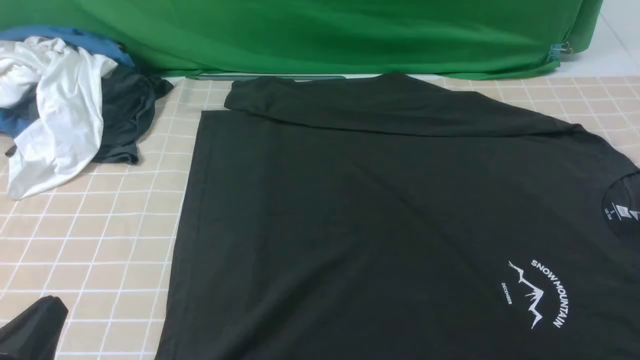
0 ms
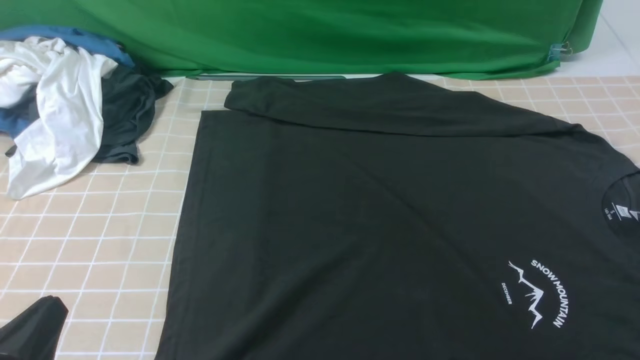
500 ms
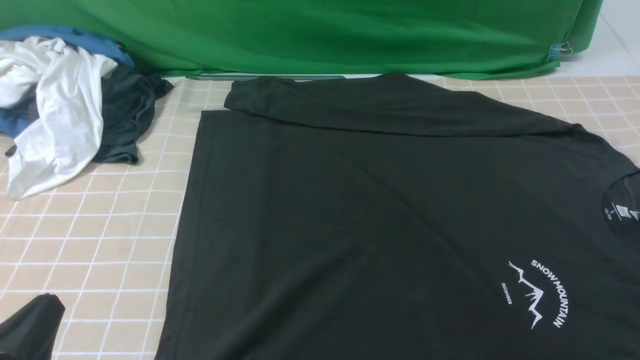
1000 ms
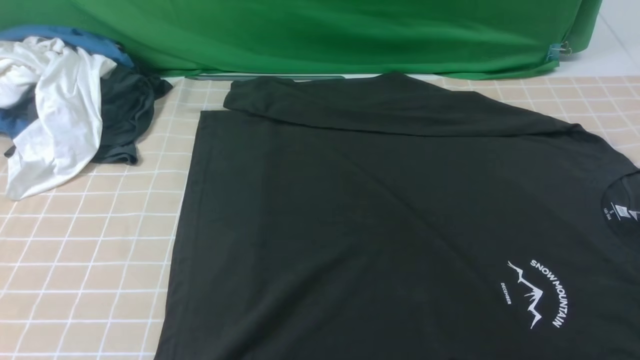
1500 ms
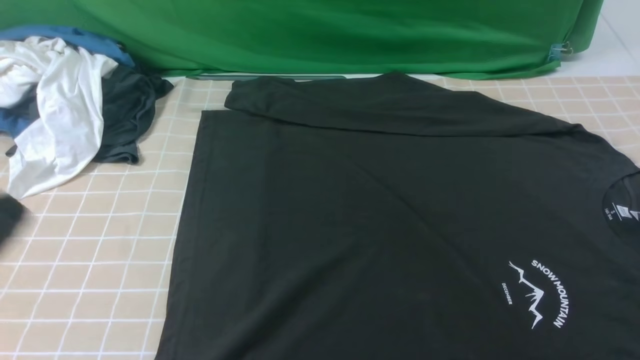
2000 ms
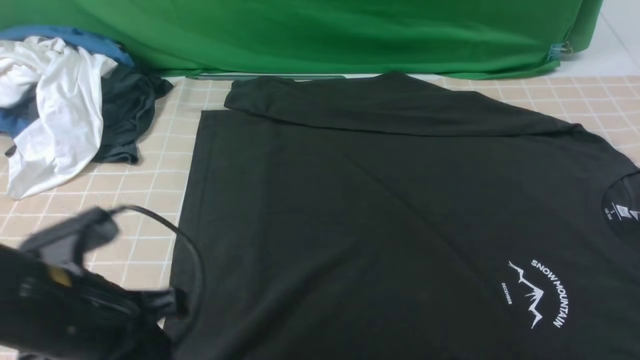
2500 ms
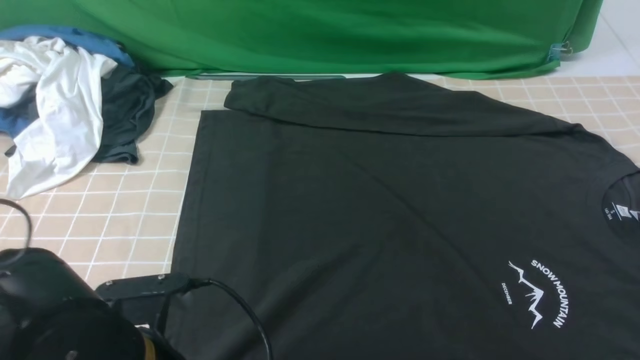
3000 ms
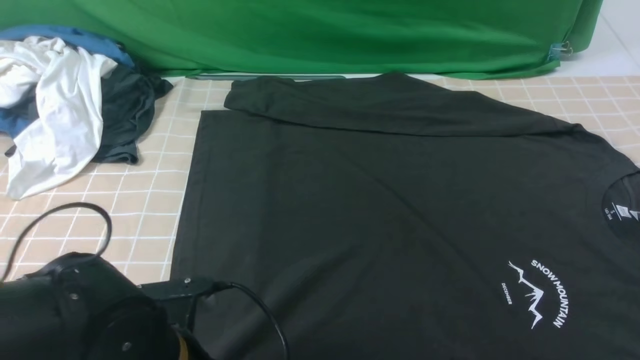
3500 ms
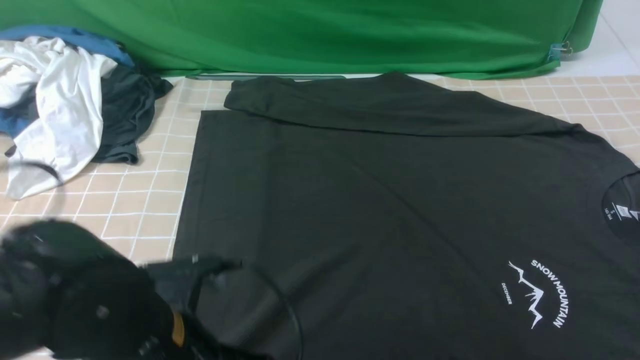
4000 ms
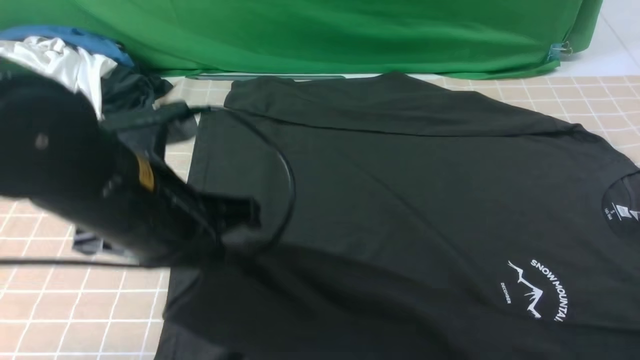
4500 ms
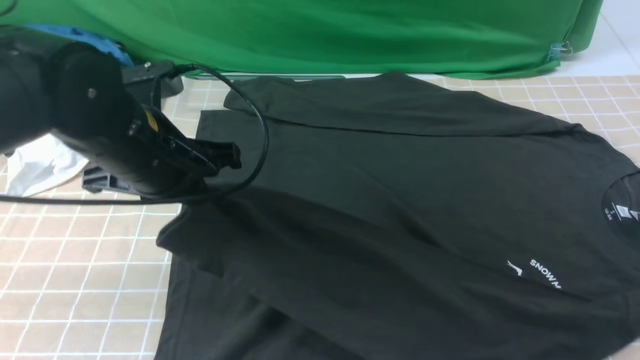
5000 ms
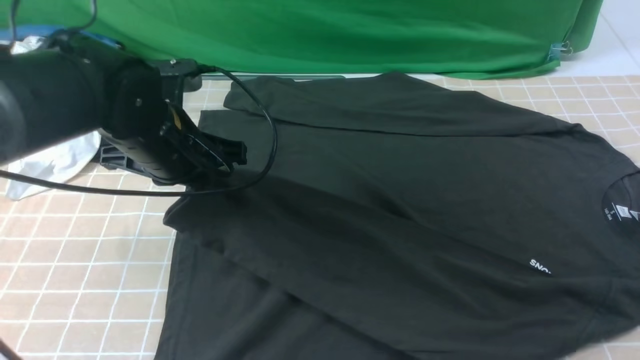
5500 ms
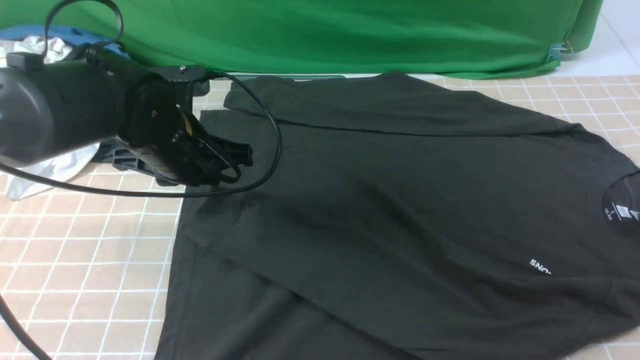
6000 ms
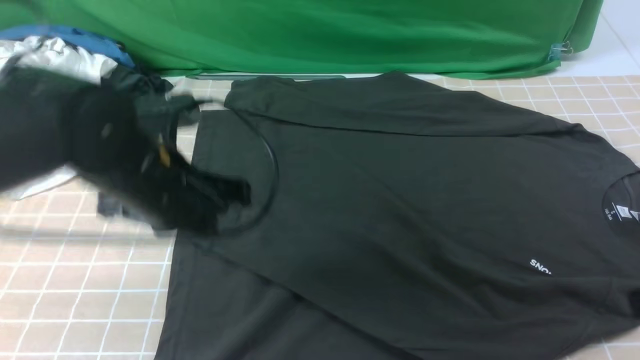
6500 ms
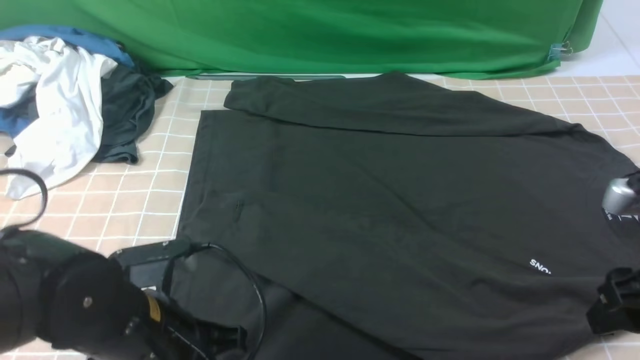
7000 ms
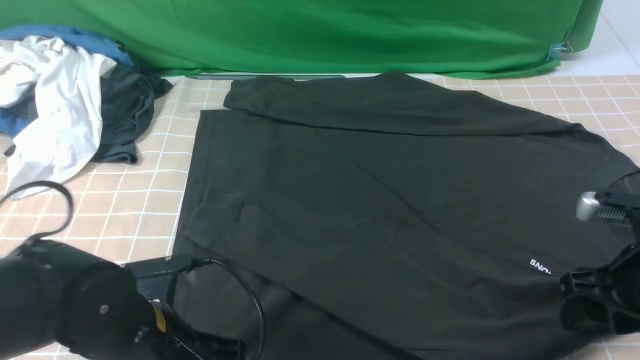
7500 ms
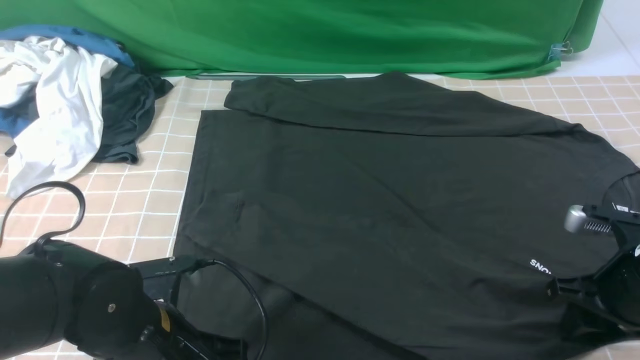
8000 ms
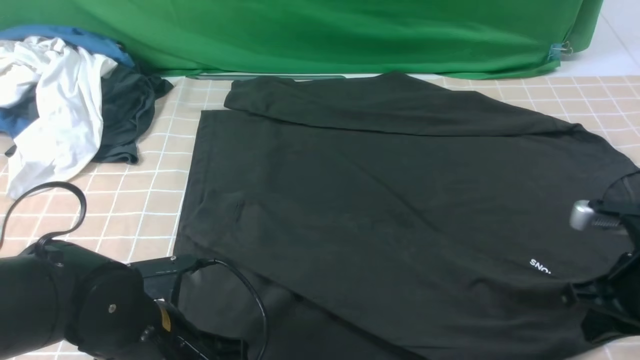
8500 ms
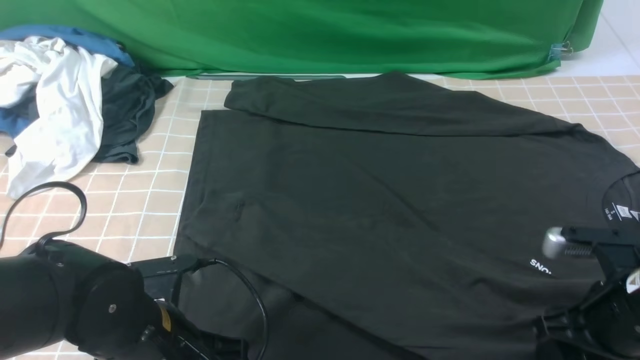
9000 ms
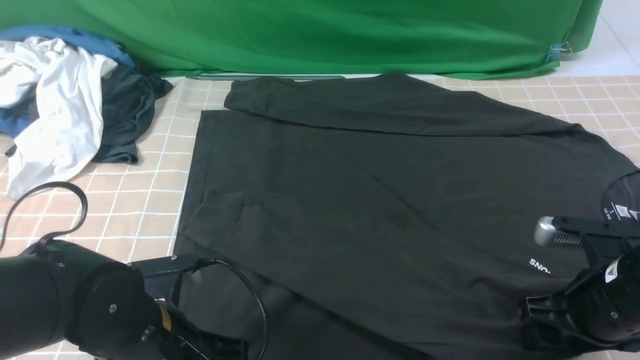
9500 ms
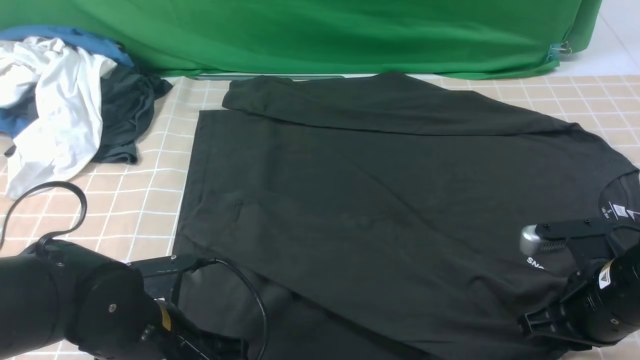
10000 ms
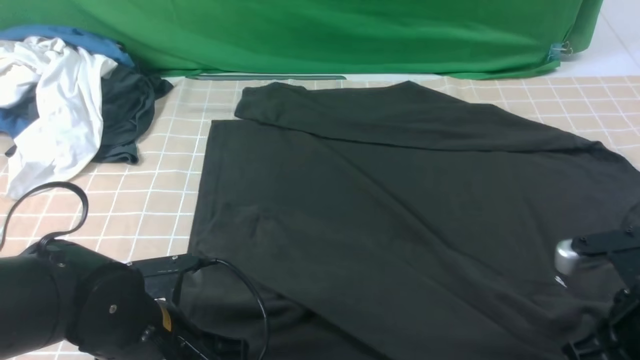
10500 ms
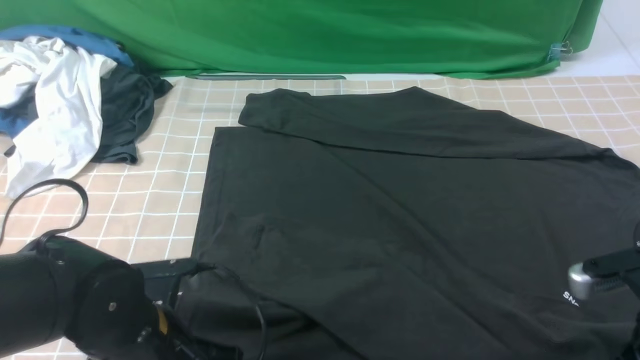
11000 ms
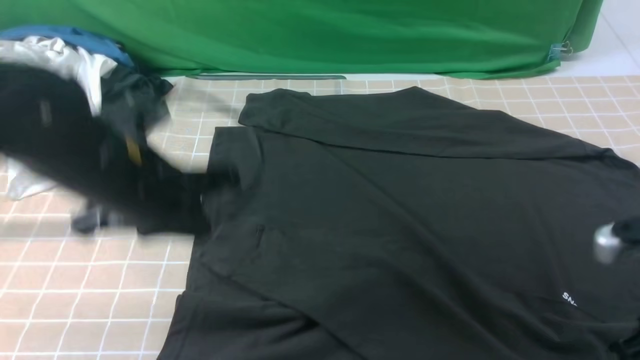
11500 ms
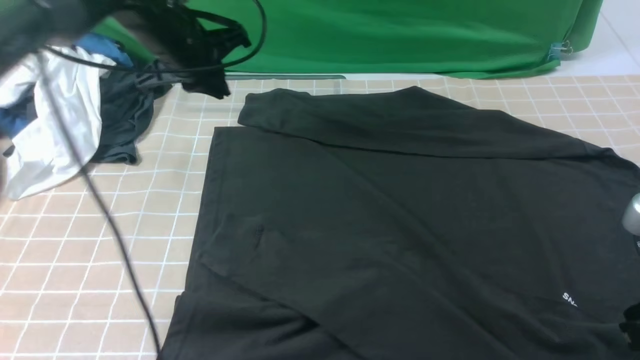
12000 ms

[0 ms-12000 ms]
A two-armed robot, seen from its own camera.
Step, 0 ms to 3500 ms: use the left arm to clamp the cuff closest to it.
Step, 4000 ms to 5500 ms: use the left arm to drag and place the cuff at the centered position on the left edge of the fabric.
0 ms to 2000 ms: The left gripper goes roughly 10 cm upward.
2000 ms to 4000 ms: The left gripper heads to the right, downward and forward, covering approximately 15 cm, and opens, then closes once more.
4000 ms to 6000 ms: The left gripper goes approximately 20 cm forward, and opens.
6000 ms to 8000 ms: The right gripper heads downward and forward, covering about 25 cm, and opens. Meanwhile the left gripper is displaced backward and downward by approximately 20 cm, and closes its fingers.
8000 ms to 10000 ms: The right gripper closes.
10000 ms to 12000 ms: The left gripper heads forward, covering roughly 30 cm. The right gripper travels upward and backward by about 15 cm.

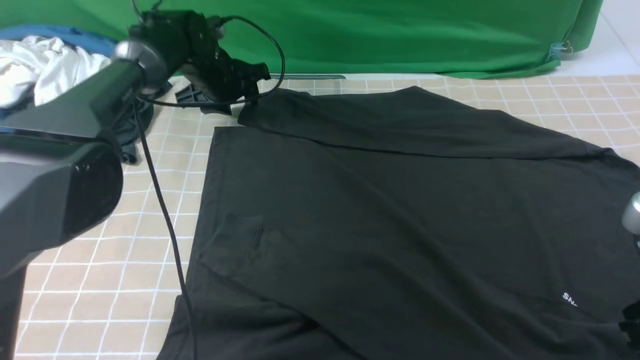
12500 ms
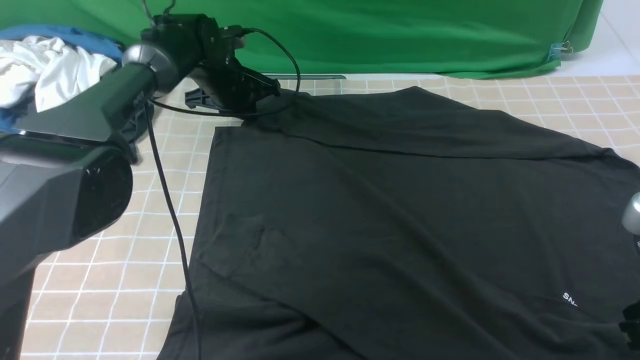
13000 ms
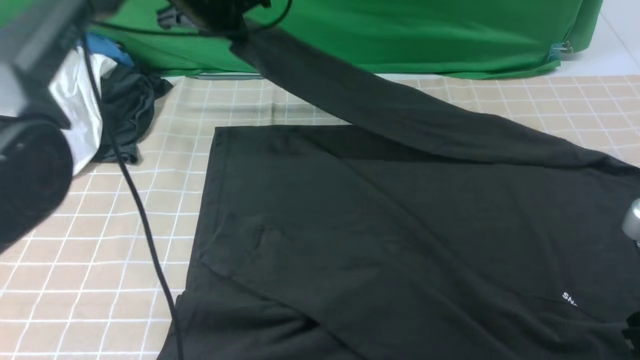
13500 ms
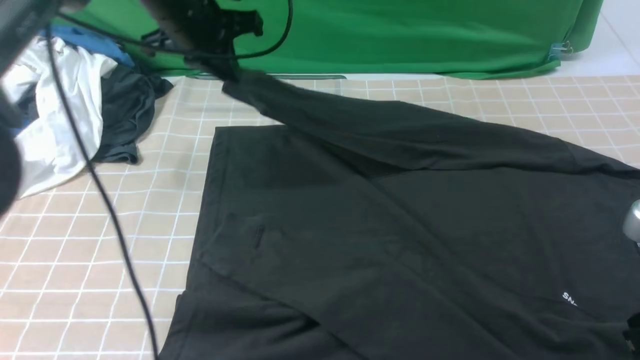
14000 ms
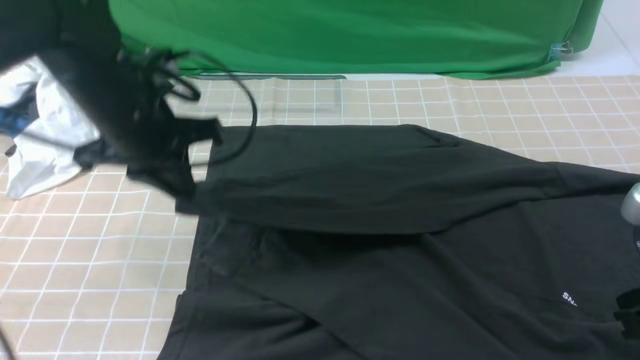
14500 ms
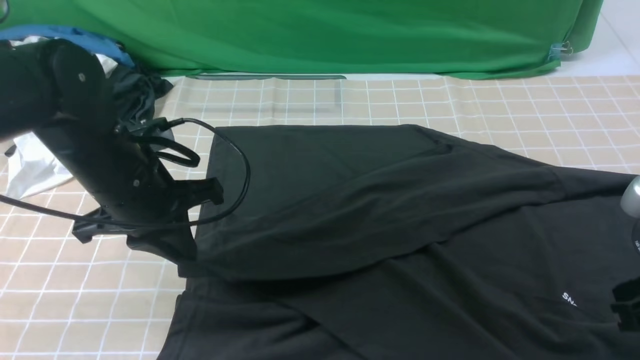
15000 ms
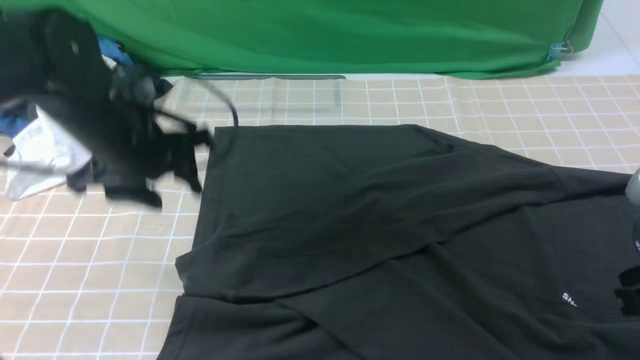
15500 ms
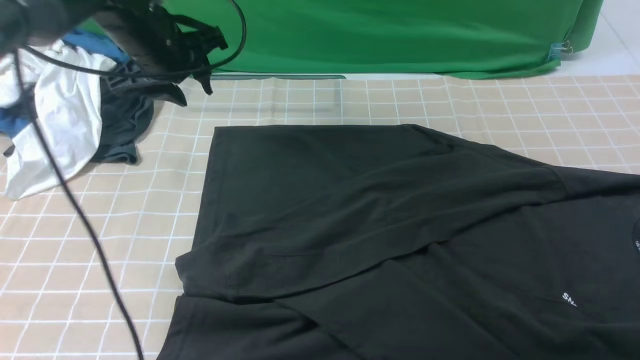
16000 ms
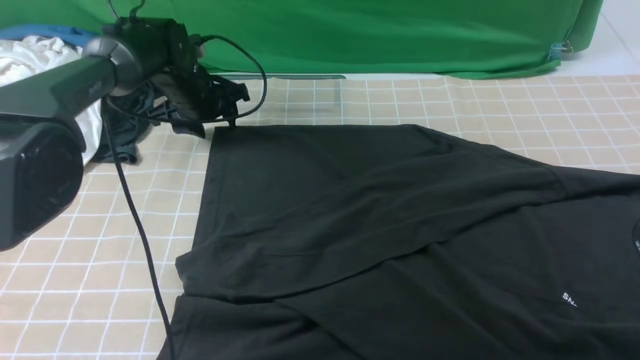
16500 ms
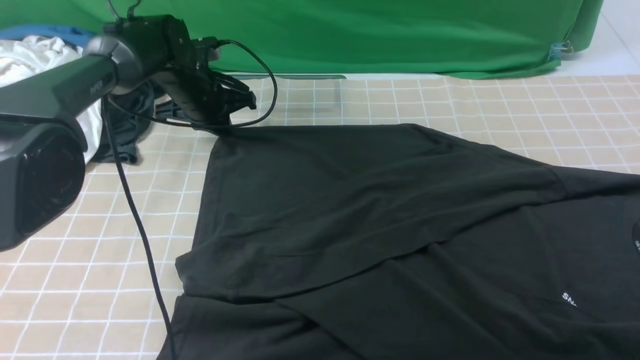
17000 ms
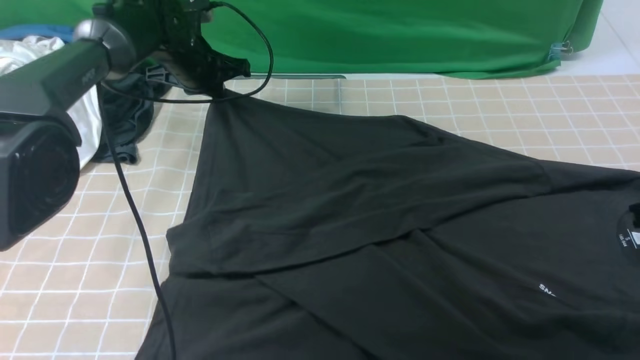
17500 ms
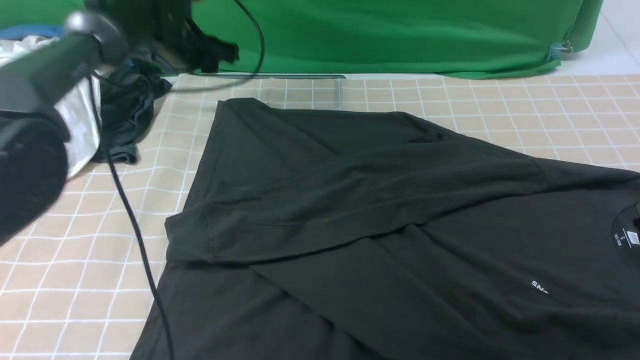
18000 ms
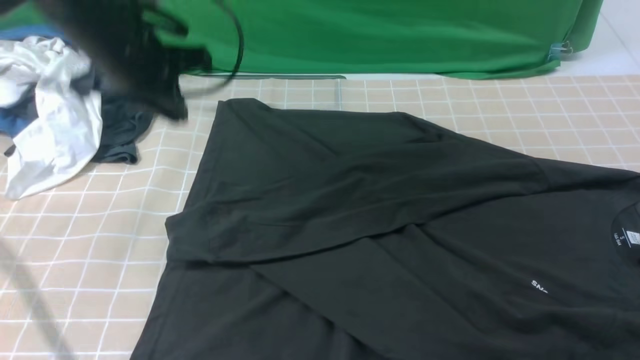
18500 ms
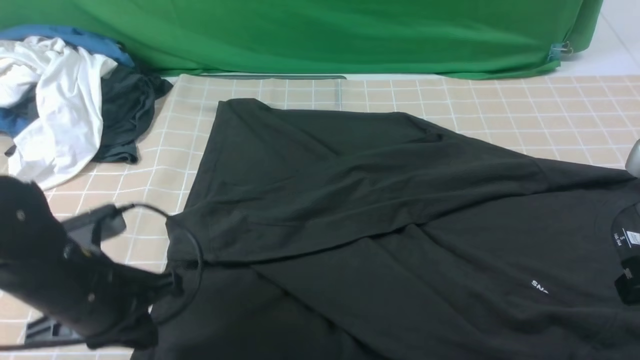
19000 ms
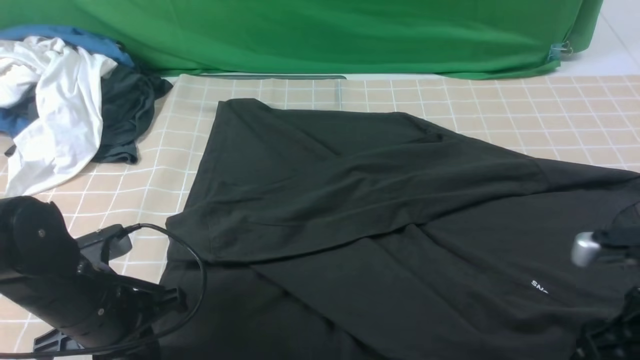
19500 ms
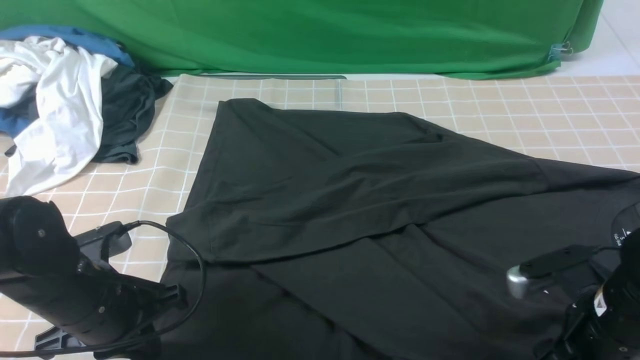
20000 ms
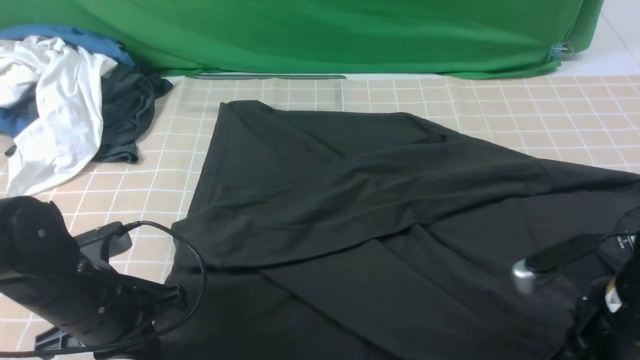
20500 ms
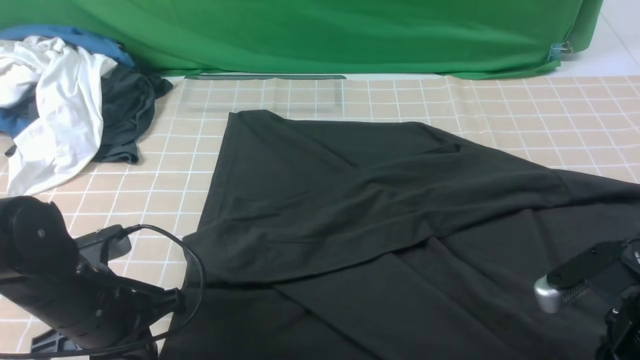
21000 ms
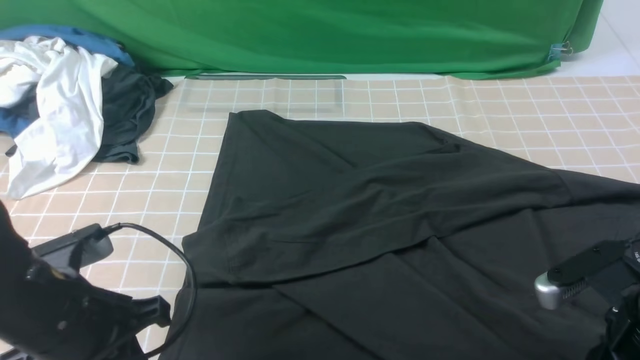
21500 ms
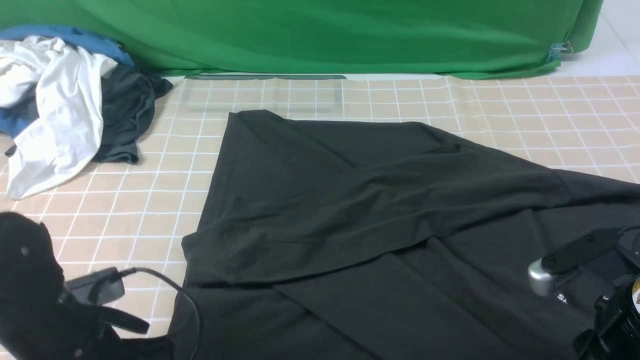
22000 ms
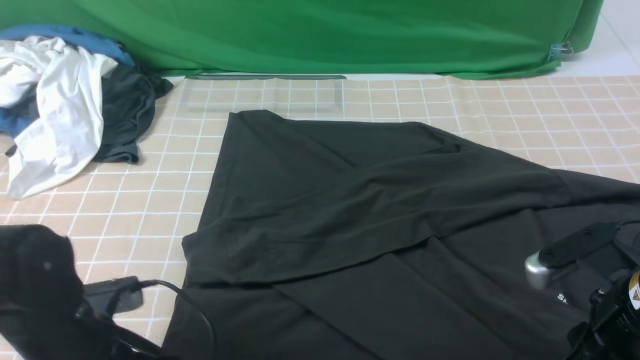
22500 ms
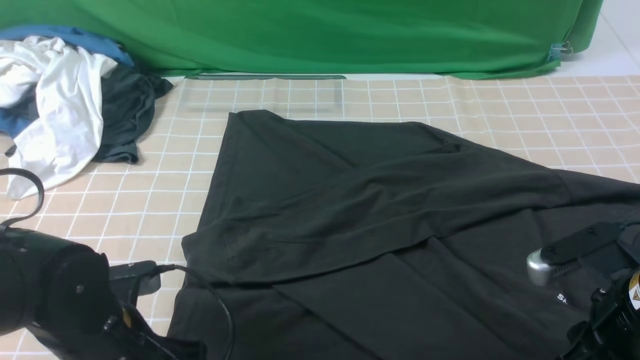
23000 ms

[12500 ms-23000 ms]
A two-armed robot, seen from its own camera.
Step, 13500 ms to 15000 ms: use the left arm to drag and drop the cuff onto the cuff closest to the left arm.
12500 ms to 14500 ms: The left gripper goes roughly 25 cm backward and upward, and closes.
14500 ms to 16500 ms: The right gripper goes approximately 5 cm forward. Meanwhile the left gripper travels forward and downward by approximately 20 cm, and opens its fingers.
16500 ms to 19000 ms: The right gripper opens its fingers. The left gripper travels backward by some 30 cm, and closes its fingers.
19000 ms to 21000 ms: The right gripper travels downward by some 10 cm, and opens, then closes once more.
21000 ms to 23000 ms: The left gripper opens up.
